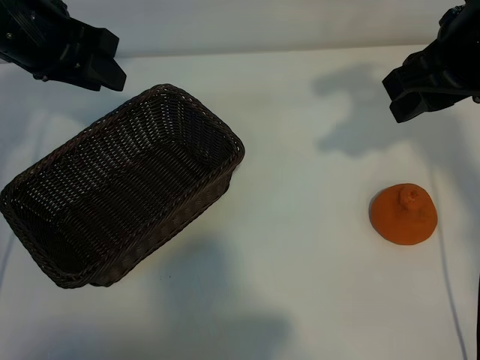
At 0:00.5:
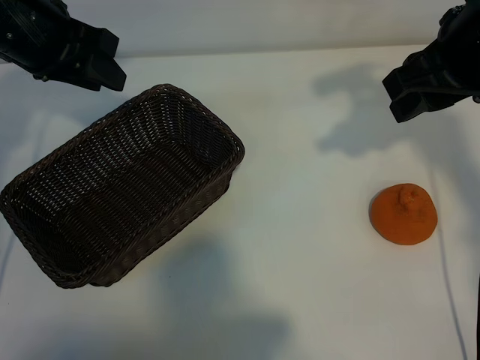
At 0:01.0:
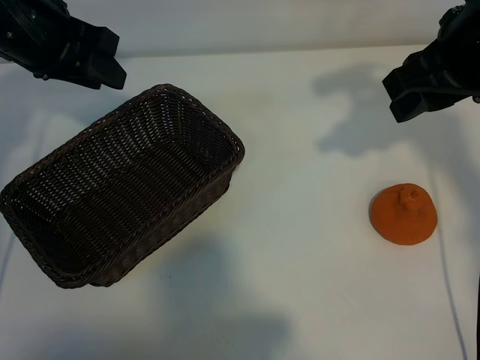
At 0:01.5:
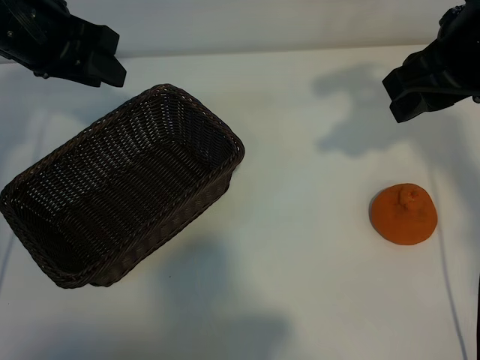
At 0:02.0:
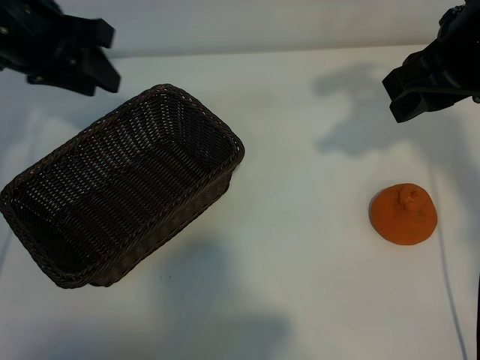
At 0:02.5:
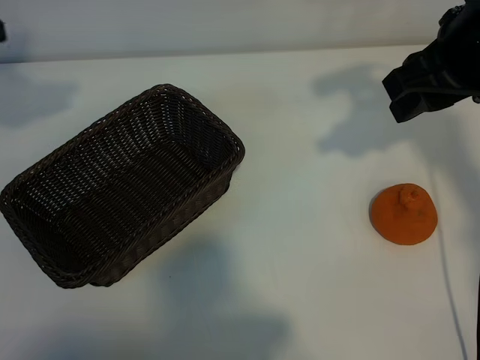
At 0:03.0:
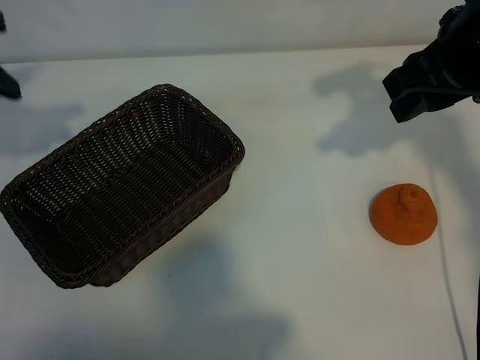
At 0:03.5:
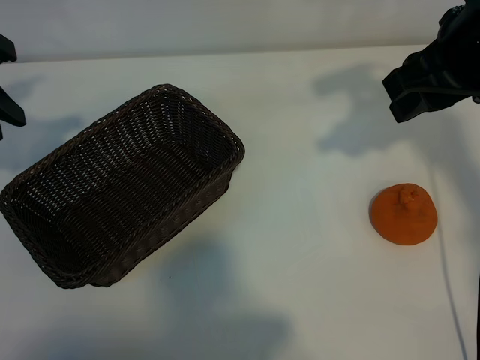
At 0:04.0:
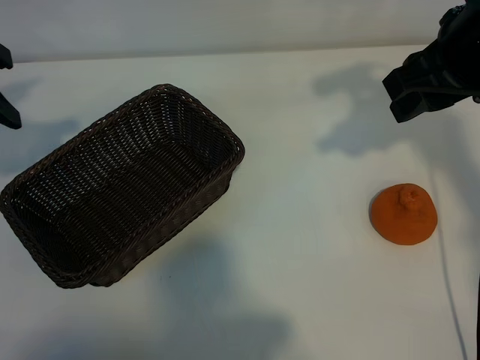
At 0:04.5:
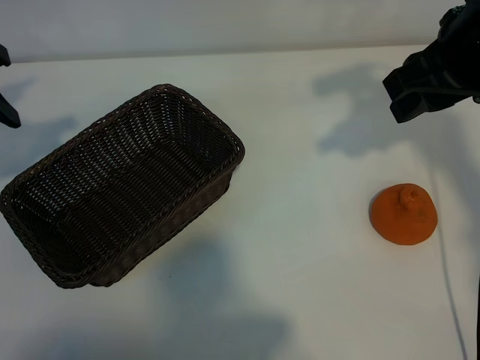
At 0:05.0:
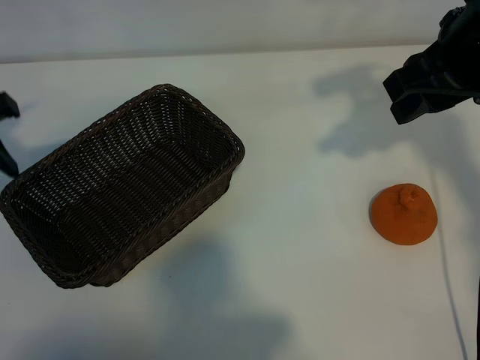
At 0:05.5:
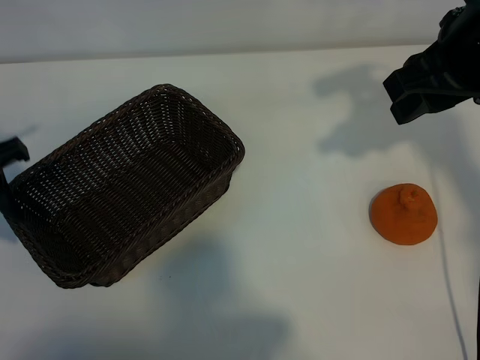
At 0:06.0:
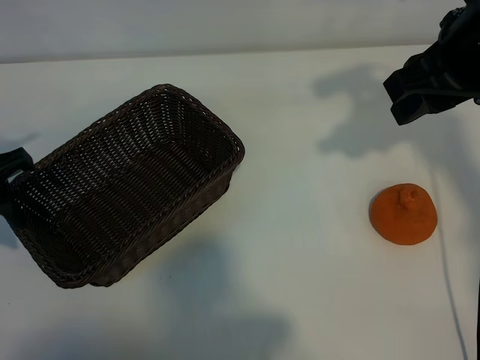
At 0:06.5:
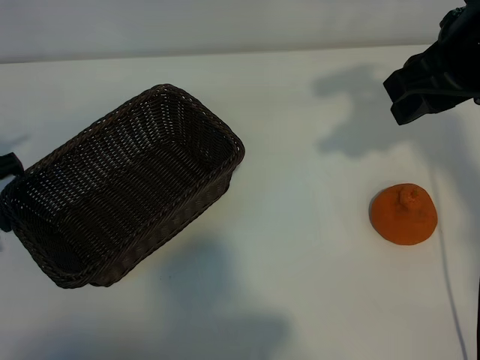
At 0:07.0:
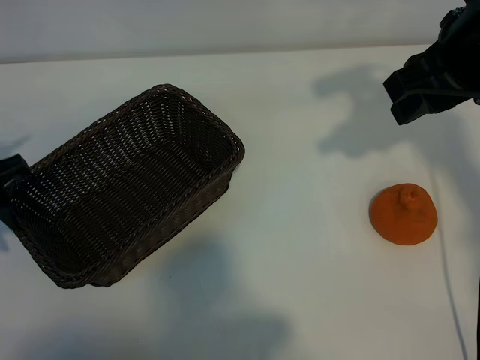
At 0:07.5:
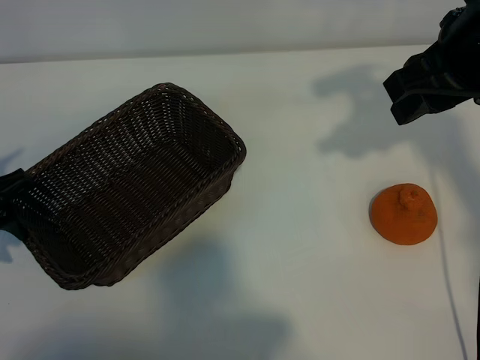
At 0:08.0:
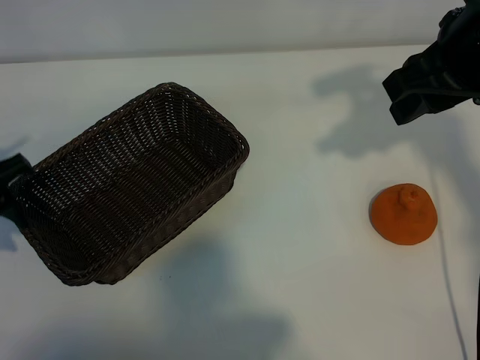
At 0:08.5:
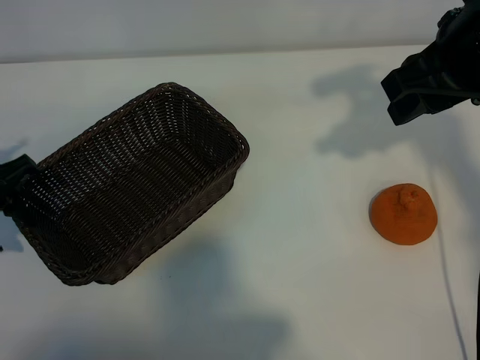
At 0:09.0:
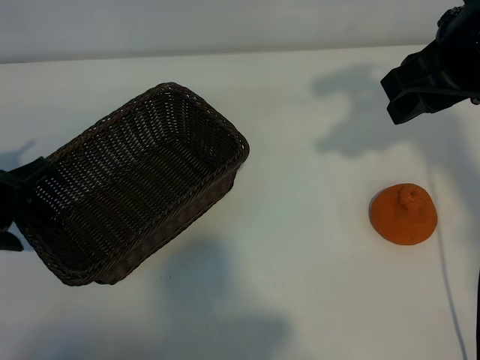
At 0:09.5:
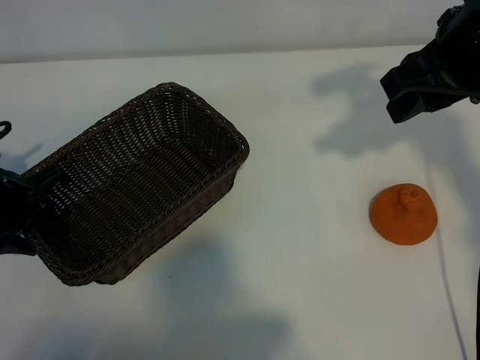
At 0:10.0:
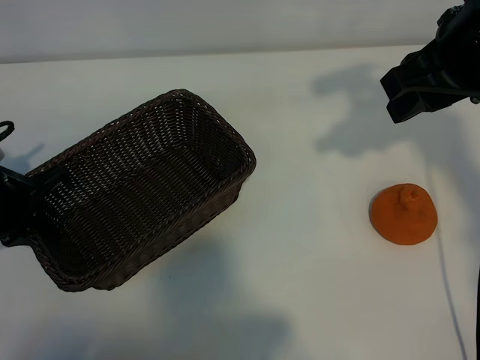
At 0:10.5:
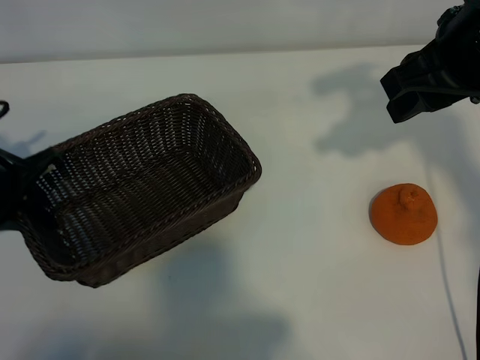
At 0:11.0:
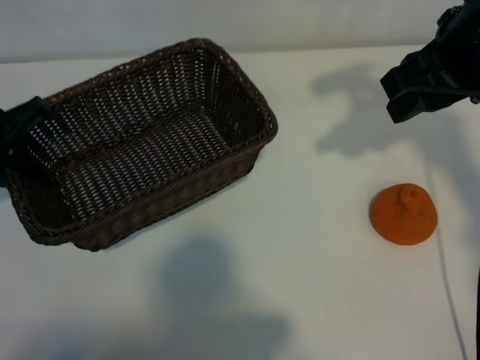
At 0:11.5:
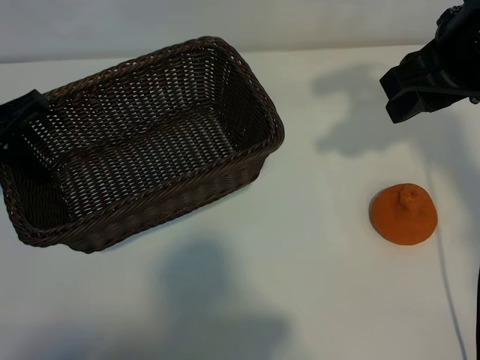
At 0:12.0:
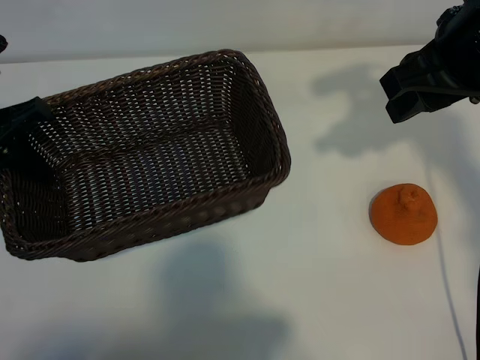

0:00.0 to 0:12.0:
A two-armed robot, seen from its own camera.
Task of the whole recording: pick up the orange and put it into the basket.
Step, 0:01.0 to 0:09.5: Grasp the basket with left gripper.

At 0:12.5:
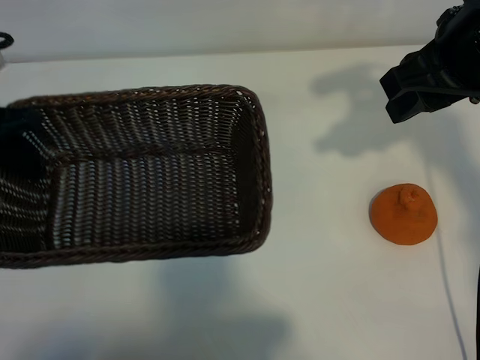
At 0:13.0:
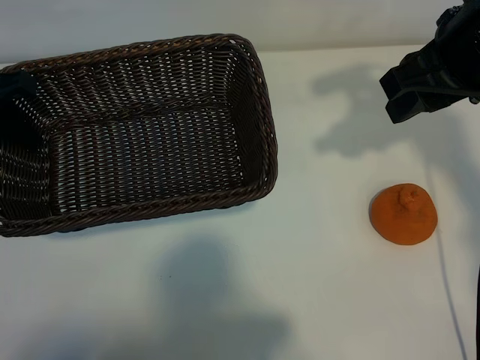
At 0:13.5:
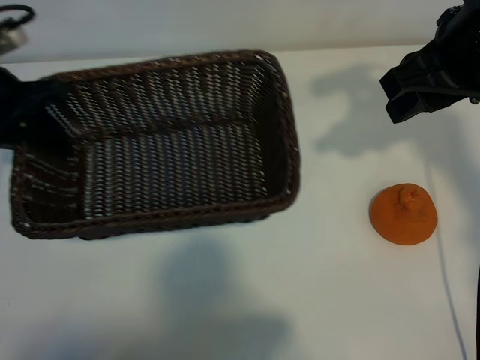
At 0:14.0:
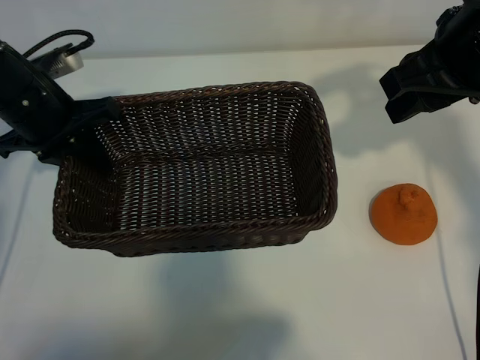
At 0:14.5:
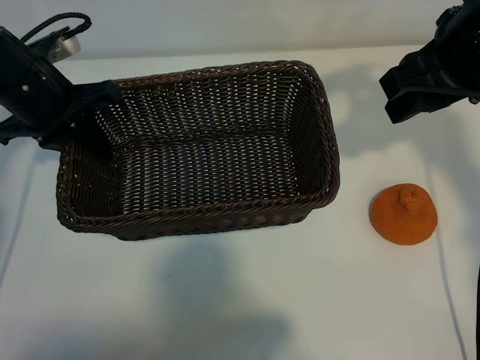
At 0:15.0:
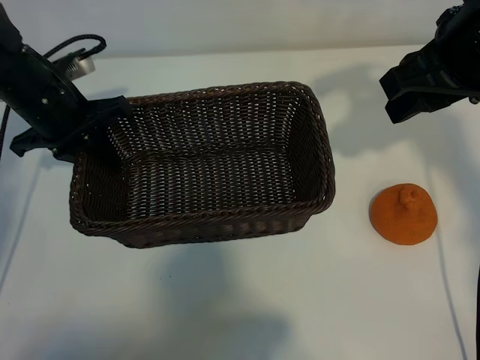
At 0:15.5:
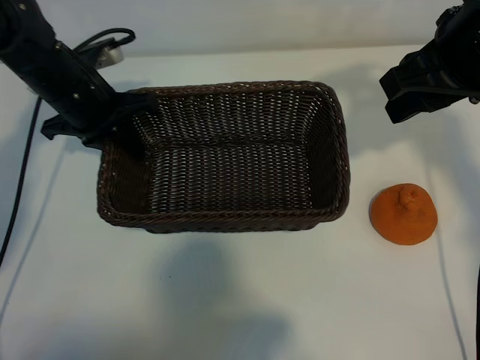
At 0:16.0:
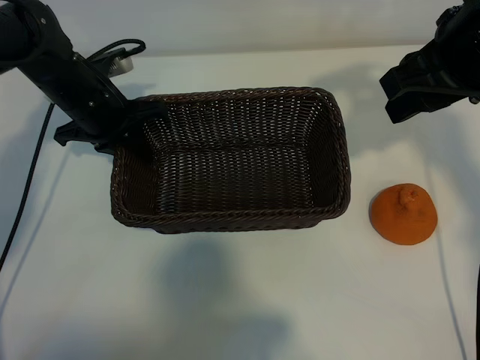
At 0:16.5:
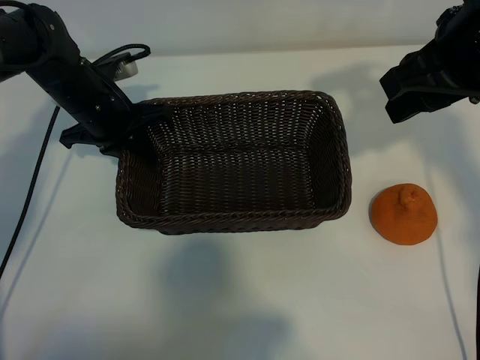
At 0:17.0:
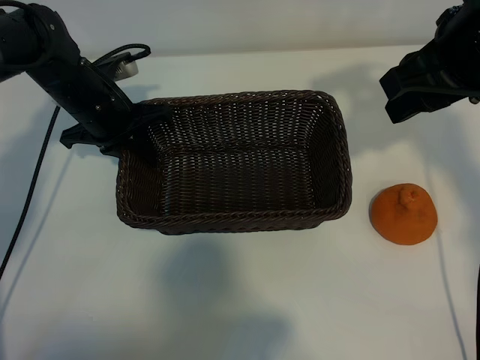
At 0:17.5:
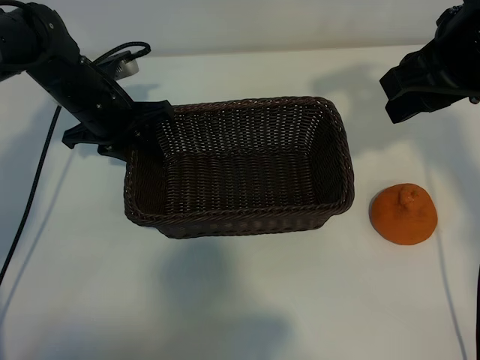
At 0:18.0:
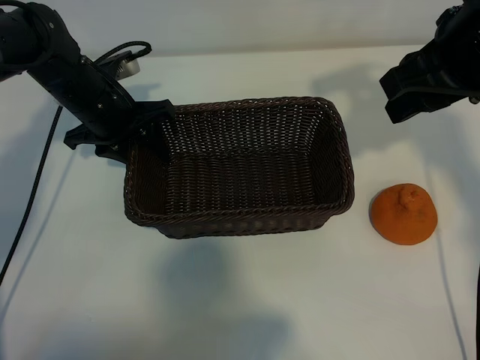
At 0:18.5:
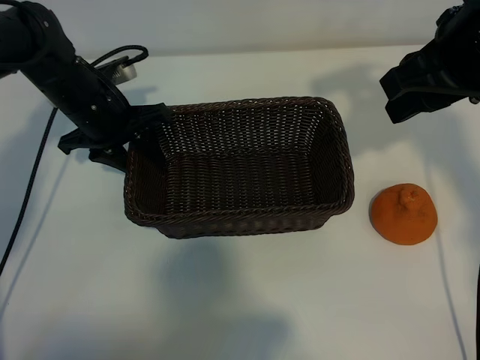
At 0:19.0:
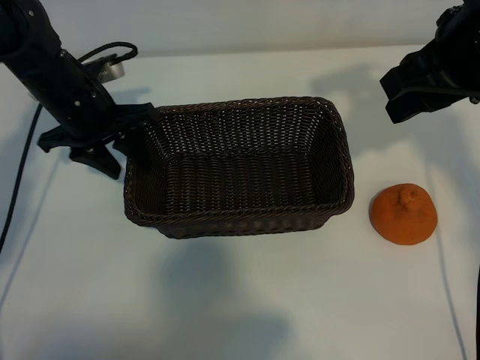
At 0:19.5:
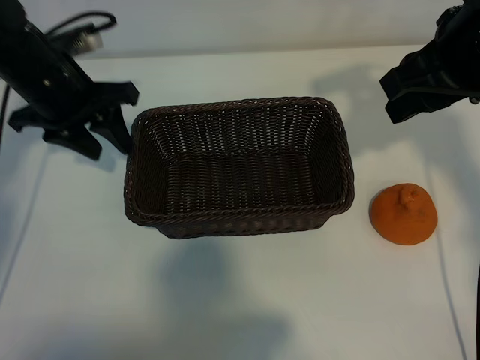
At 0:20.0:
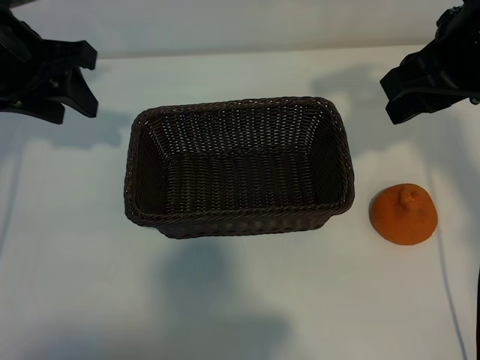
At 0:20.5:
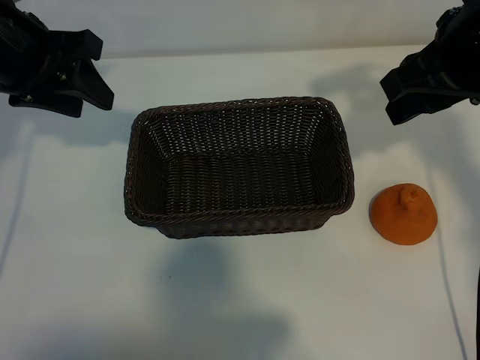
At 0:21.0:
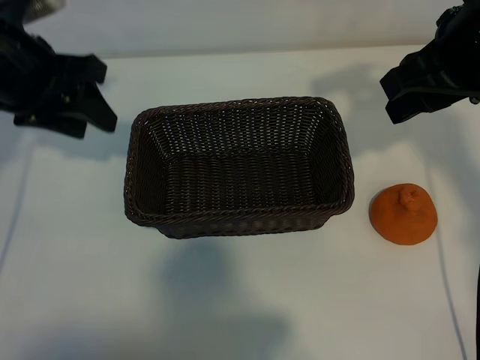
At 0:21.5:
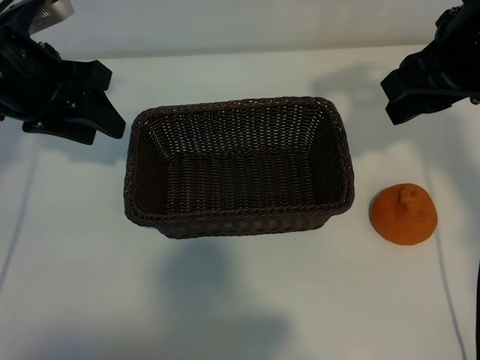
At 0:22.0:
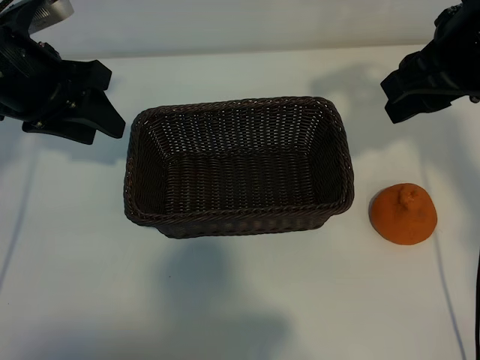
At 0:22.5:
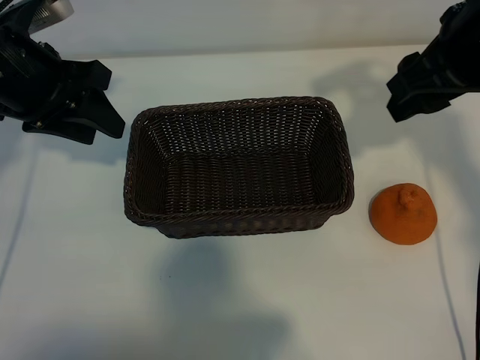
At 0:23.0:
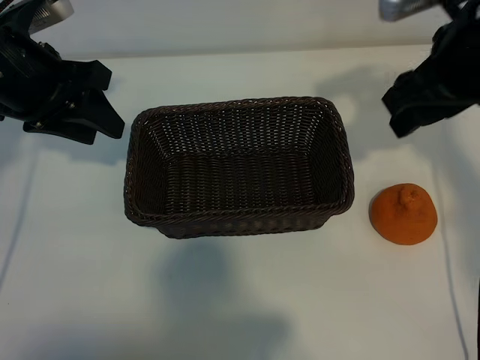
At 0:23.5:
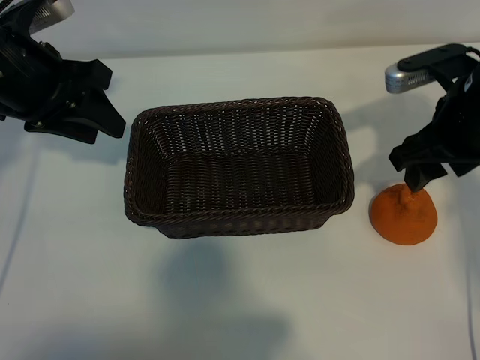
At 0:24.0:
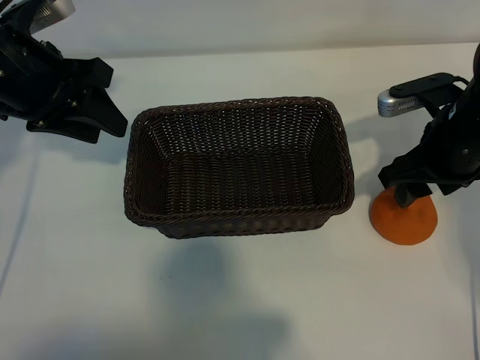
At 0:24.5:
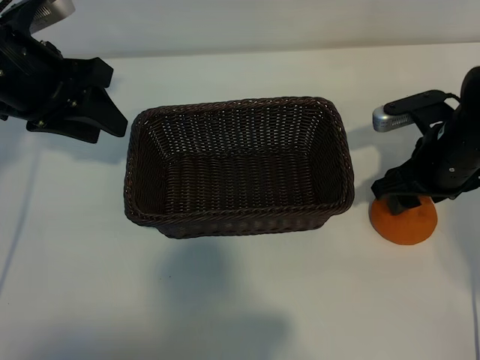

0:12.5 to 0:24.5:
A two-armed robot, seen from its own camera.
Task of the whole recording: pick up the orange and put it into the basket.
Step, 0:12.5 to 0:17.5: Place the basket in the center of view with left gripper.
